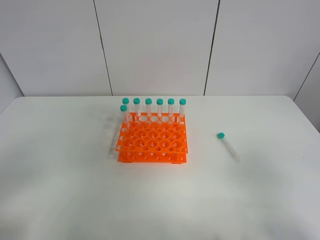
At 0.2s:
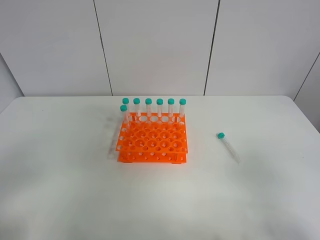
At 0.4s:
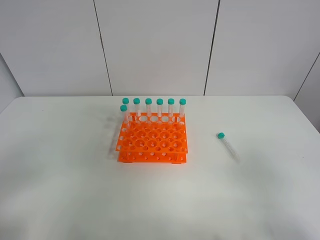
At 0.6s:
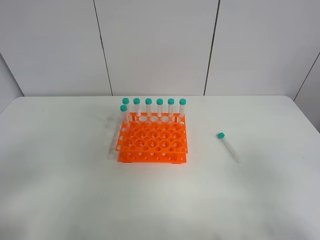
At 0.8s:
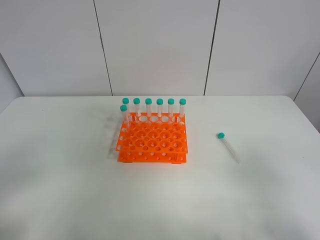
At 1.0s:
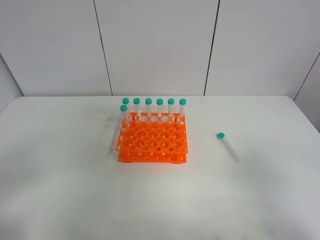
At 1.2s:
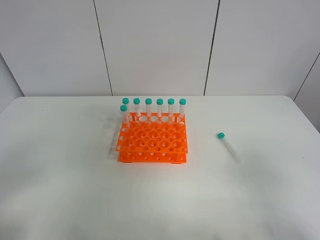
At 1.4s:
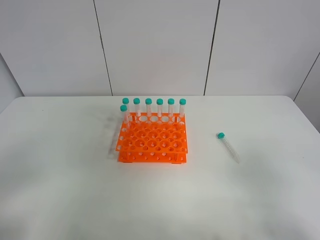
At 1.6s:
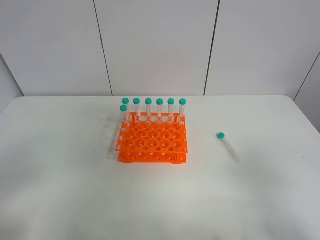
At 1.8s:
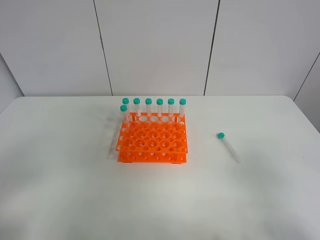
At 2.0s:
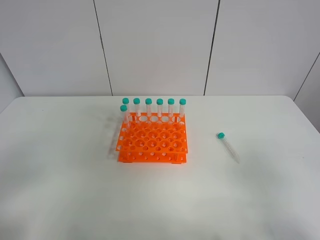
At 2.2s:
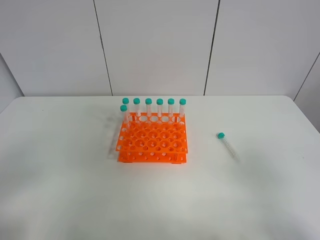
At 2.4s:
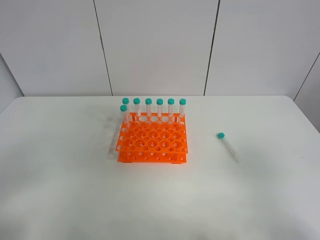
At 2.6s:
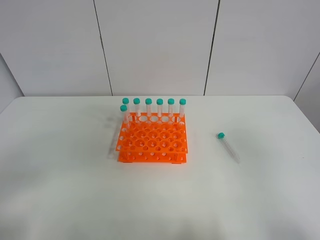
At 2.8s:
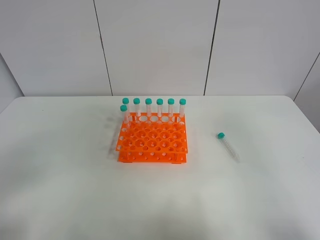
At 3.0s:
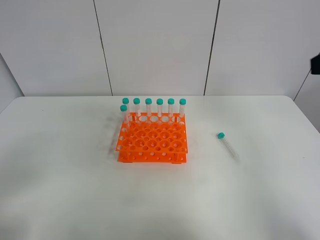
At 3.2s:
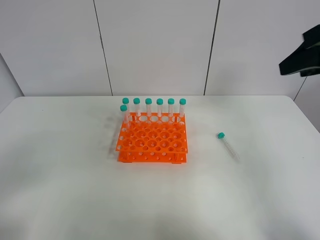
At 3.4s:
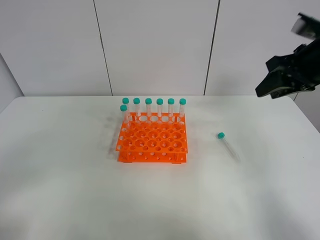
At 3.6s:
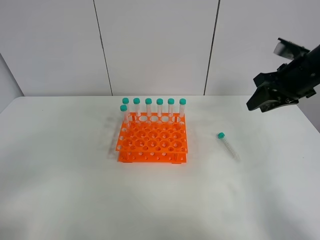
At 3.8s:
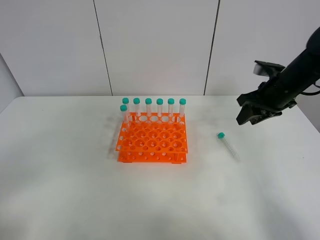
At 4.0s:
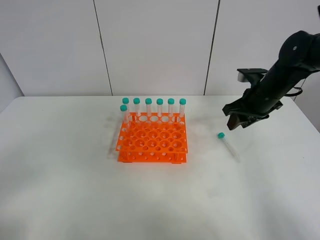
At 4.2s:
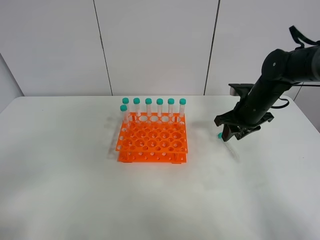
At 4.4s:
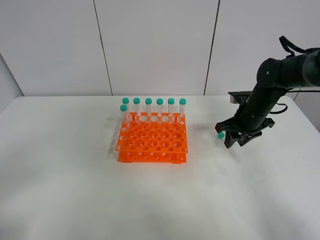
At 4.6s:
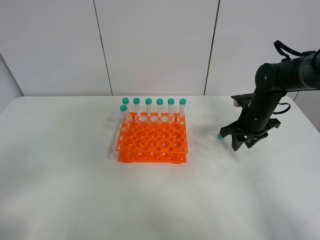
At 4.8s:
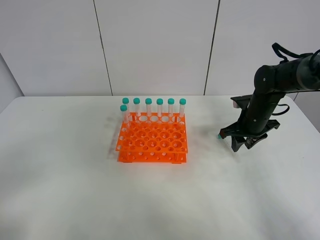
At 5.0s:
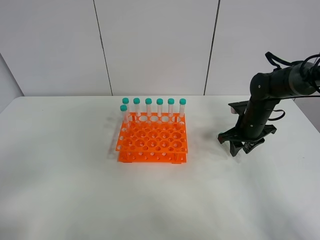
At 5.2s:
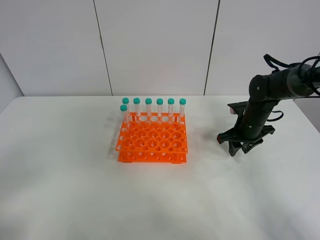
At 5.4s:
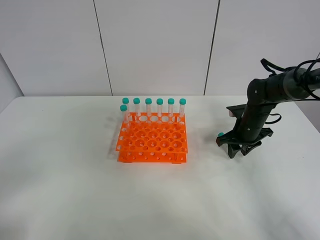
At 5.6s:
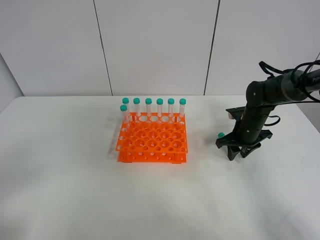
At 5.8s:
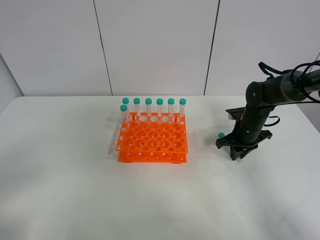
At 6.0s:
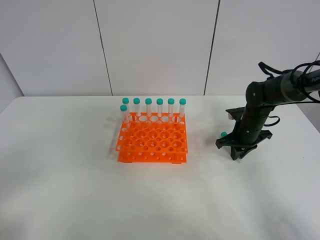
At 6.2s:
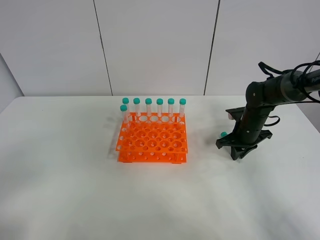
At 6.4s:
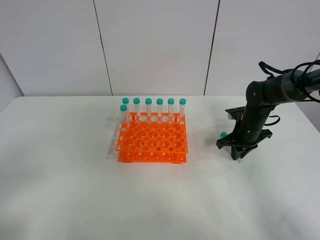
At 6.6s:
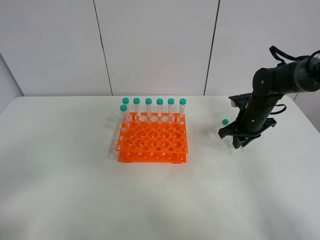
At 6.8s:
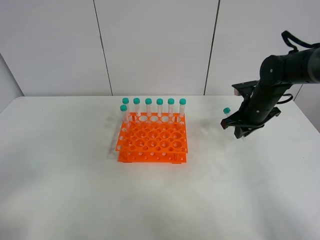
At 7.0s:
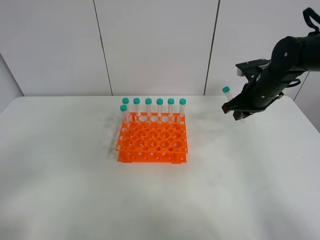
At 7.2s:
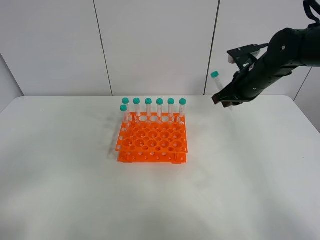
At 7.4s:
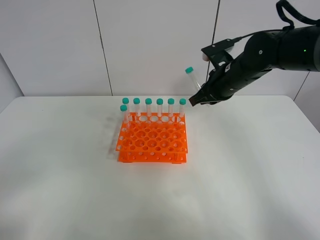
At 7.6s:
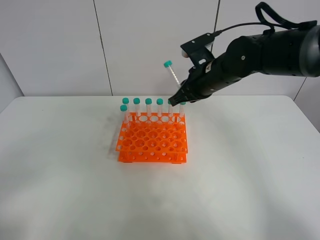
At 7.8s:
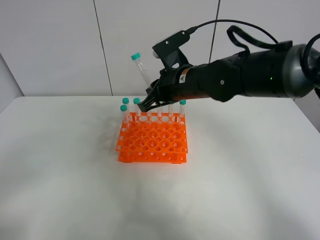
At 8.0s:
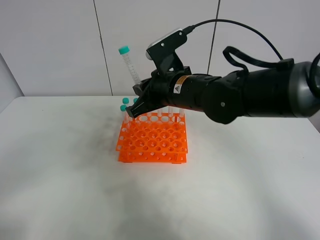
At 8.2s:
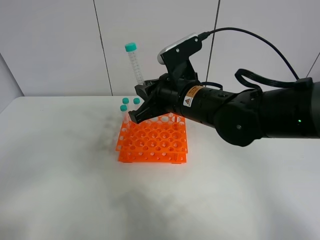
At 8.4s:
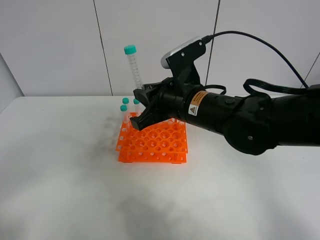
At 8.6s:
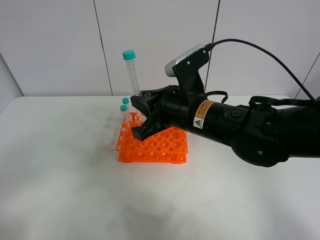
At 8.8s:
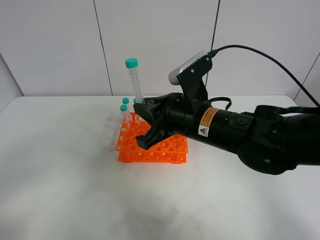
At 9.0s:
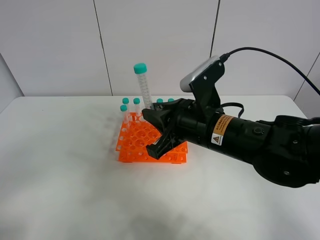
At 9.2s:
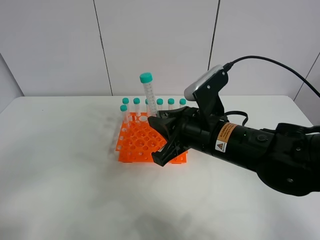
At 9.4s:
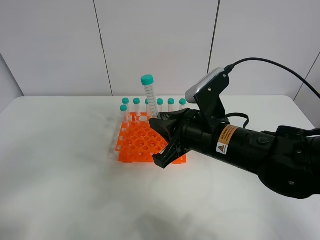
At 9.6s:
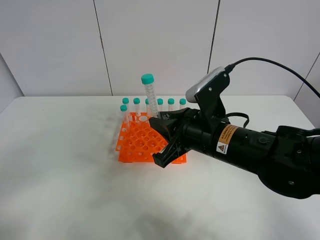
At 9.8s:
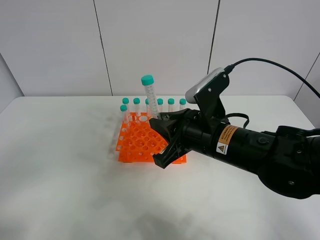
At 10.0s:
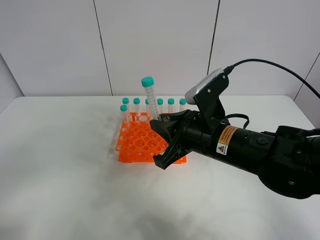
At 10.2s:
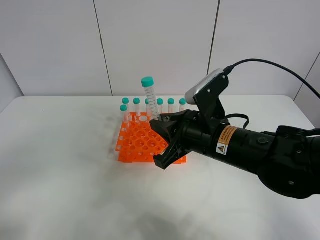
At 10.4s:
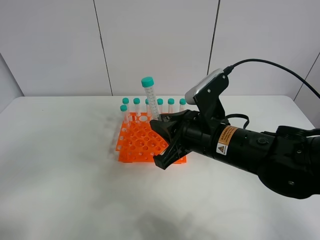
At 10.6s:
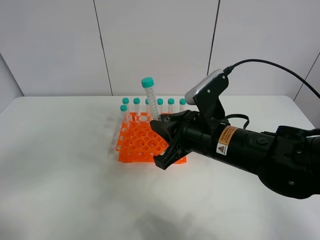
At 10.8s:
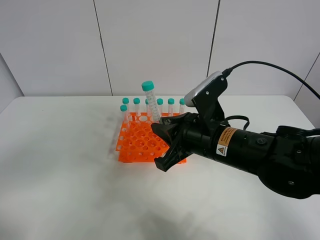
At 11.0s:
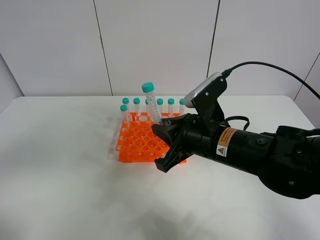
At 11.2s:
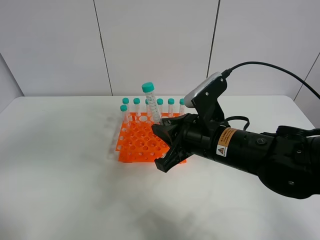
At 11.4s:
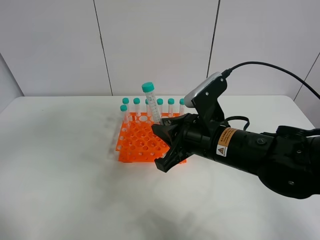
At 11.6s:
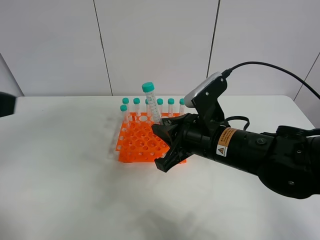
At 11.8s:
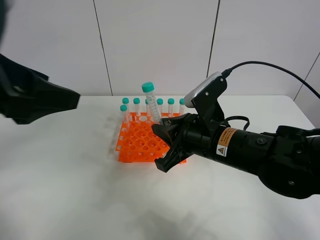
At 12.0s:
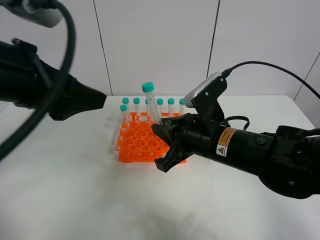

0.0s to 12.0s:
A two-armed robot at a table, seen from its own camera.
Task of the whole recording: Put the test tube on the table back onto the test tube rack.
Step, 0.0s to 6.0s: Pick up the test tube with the right gripper.
0.0s to 1.6s: Neither gripper changes place.
1.6s to 3.0s: The right gripper shifts some 20 cm forward and upward.
3.0s to 4.4s: The right gripper shifts about 30 cm downward and forward.
4.4s to 6.0s: The right gripper shifts roughly 5 cm downward, and closes up.
6.0s to 7.6s: The right gripper travels upward and to the left by about 20 cm.
7.6s to 9.0s: The right gripper is displaced backward by some 15 cm.
9.0s to 10.4s: The grippers move only a little.
10.4s to 12.0s: The left gripper shifts about 25 cm forward and to the right.

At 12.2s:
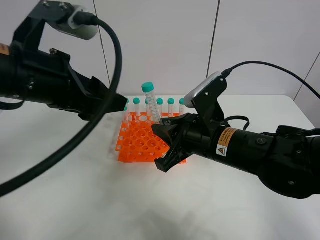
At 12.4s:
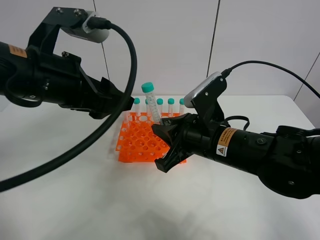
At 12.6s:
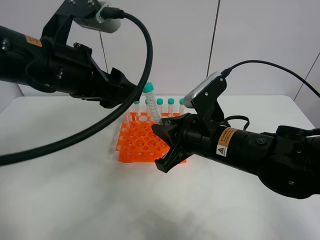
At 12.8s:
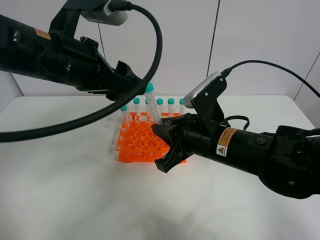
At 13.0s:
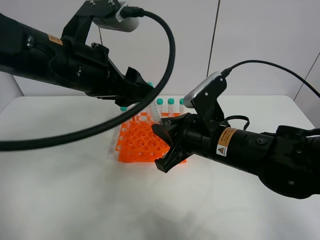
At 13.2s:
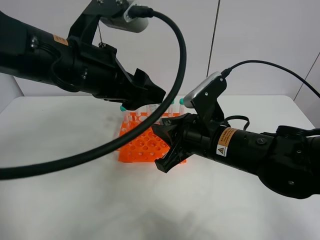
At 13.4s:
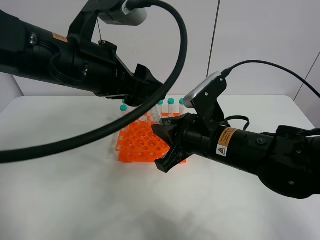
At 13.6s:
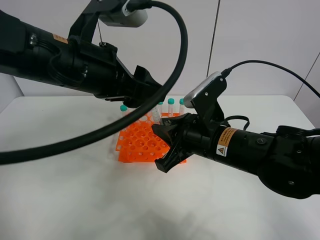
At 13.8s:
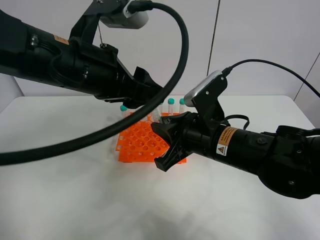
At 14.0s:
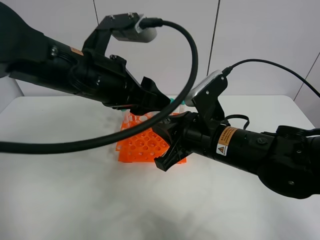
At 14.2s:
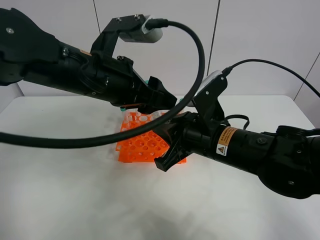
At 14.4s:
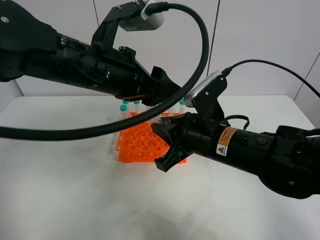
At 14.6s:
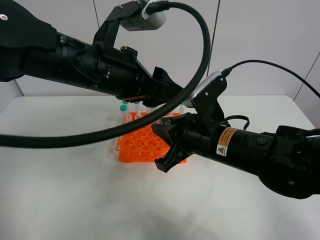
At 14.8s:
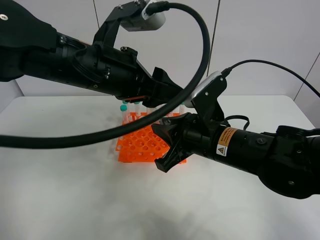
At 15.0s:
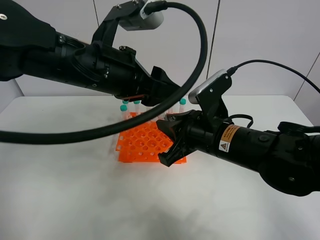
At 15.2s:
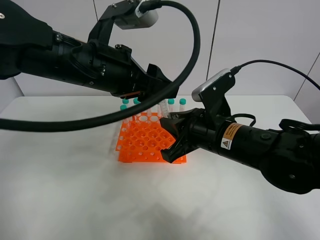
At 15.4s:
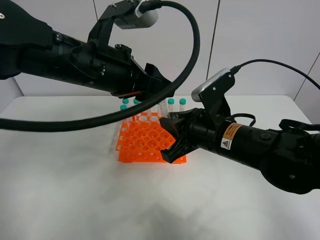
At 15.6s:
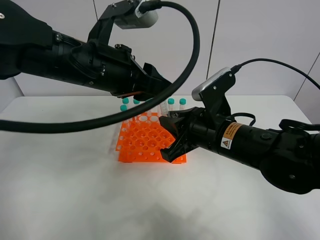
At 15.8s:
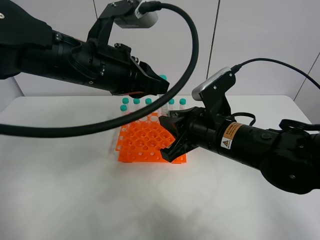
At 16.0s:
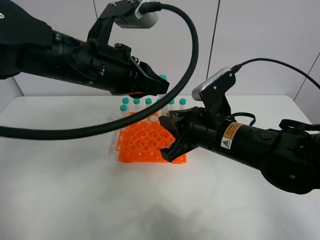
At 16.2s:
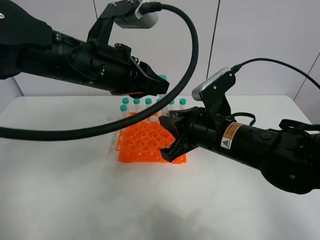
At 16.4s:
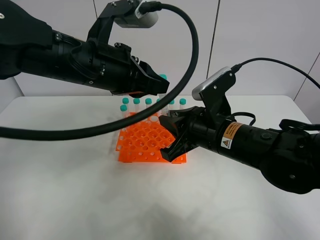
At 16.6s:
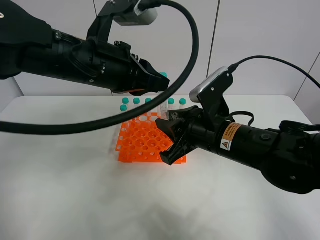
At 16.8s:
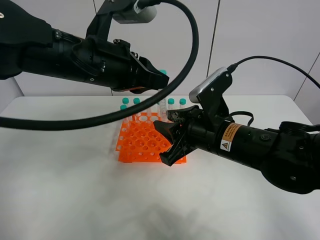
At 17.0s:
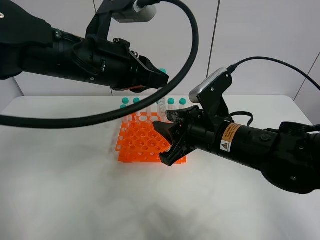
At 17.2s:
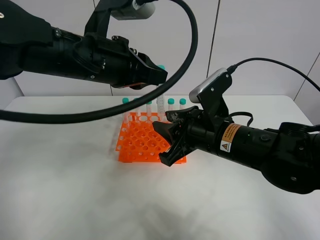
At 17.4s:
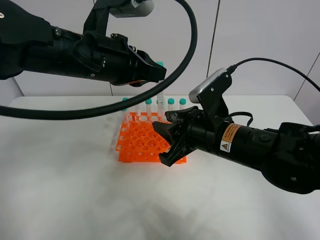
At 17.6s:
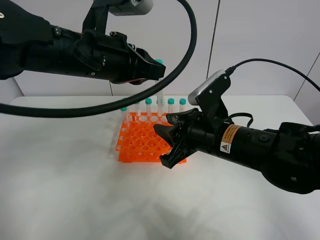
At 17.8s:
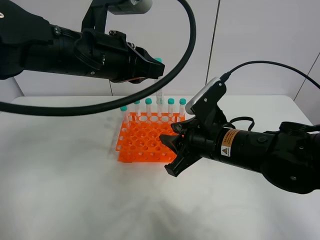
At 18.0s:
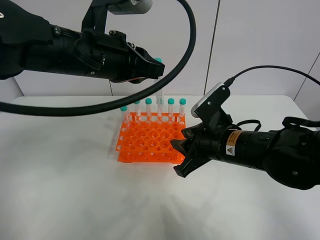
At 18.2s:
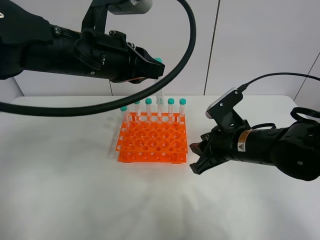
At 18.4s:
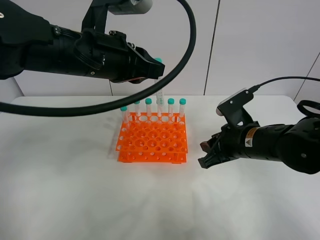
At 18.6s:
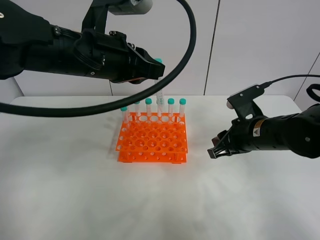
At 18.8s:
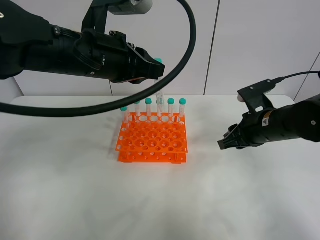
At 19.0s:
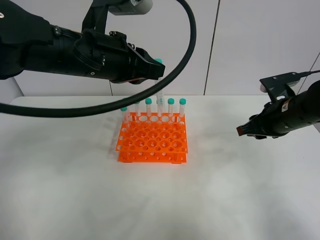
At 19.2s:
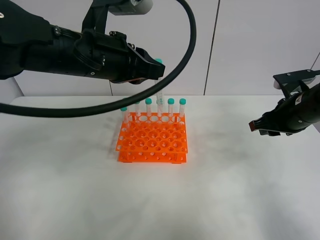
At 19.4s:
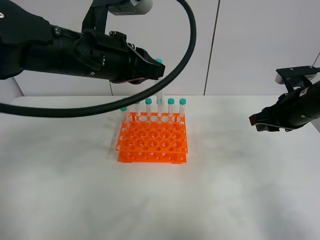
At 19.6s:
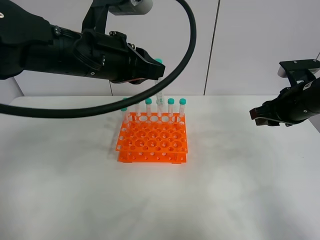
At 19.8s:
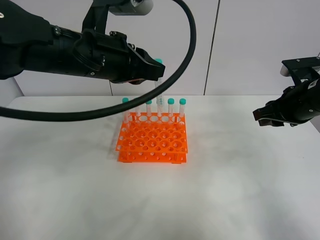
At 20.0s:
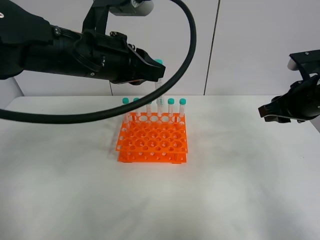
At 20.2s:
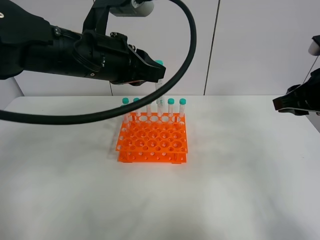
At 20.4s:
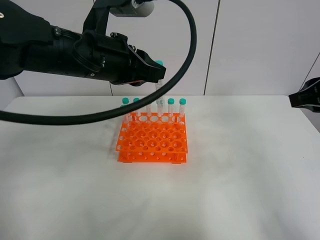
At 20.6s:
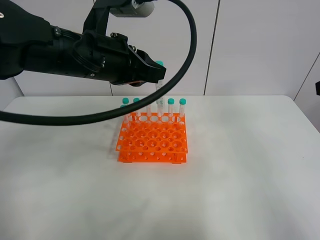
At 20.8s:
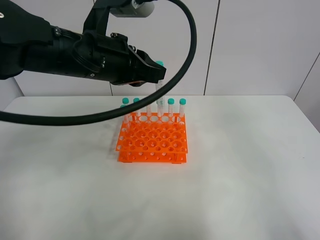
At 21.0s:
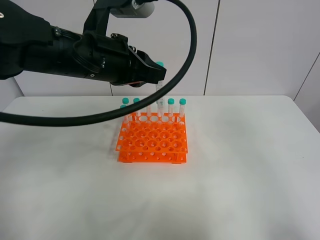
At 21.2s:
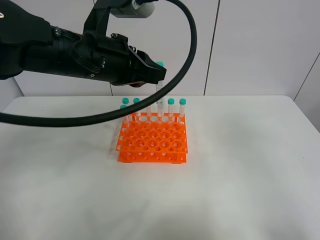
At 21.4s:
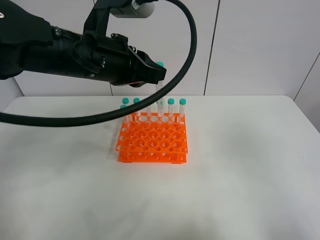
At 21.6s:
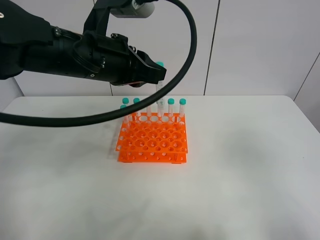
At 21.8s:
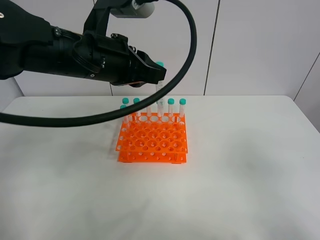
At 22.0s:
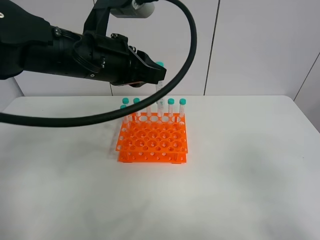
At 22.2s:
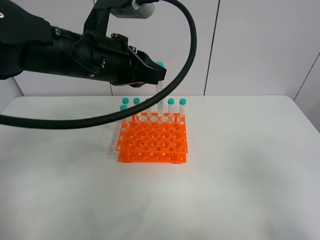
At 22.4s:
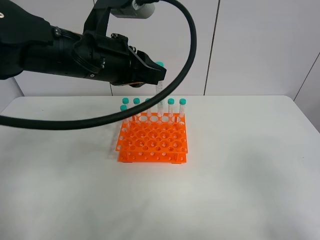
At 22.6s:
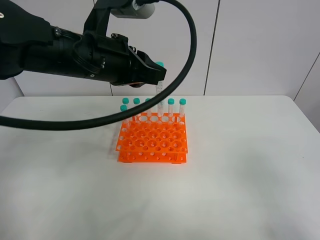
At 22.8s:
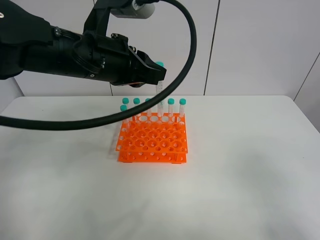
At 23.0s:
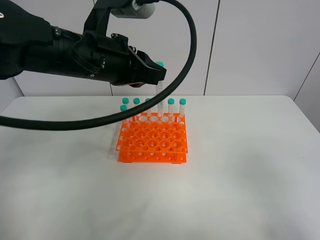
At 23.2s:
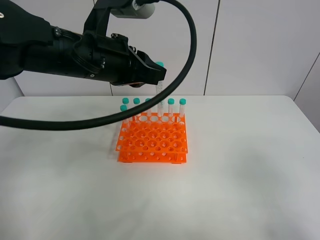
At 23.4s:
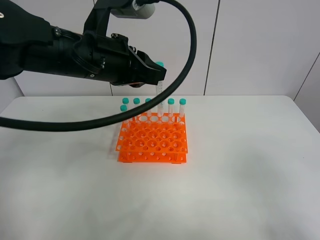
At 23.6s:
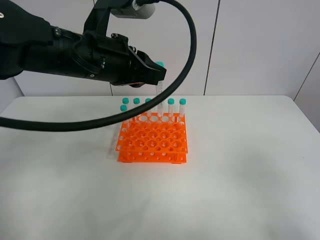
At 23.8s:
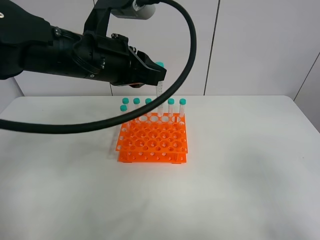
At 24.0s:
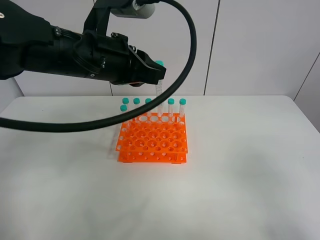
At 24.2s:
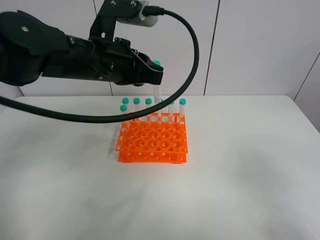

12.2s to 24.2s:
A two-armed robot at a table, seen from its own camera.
Task of the whole recording: Put the test tube on the table back onto the test tube rack.
Step, 12.2s to 17.0s: Move the test tube from the right gripper to the left gripper.
12.2s to 13.8s: The left gripper goes roughly 5 cm to the right.
15.2s to 16.6s: The right gripper opens, while the left gripper closes its fingers.
16.6s to 18.2s: The right gripper shifts some 5 cm to the right.
18.2s to 19.8s: The right gripper goes some 15 cm to the right and upward.
19.8s to 21.2s: The right gripper goes roughly 25 cm backward and upward.
21.2s to 22.6s: The right gripper heads downward and backward, covering roughly 10 cm.
22.6s to 24.2s: The grippers make only small movements.
